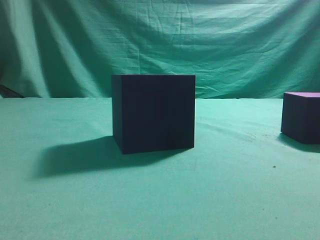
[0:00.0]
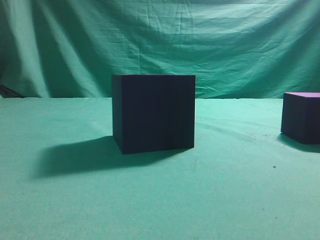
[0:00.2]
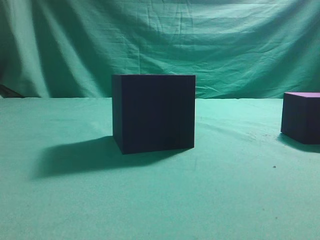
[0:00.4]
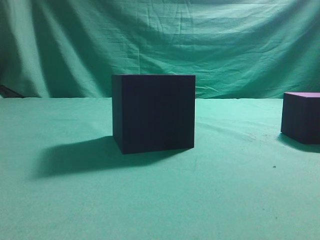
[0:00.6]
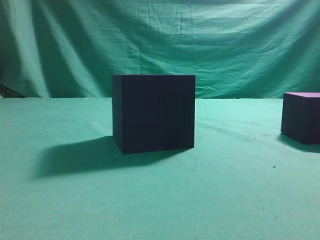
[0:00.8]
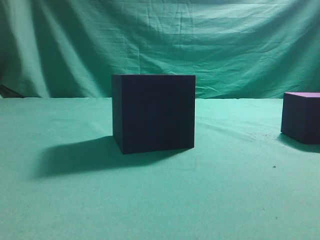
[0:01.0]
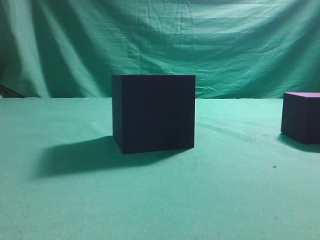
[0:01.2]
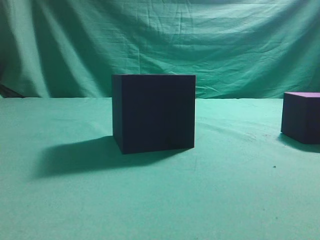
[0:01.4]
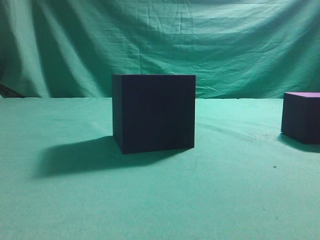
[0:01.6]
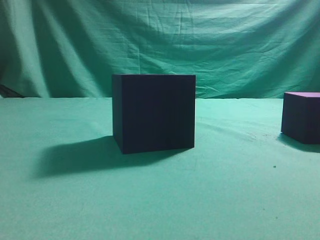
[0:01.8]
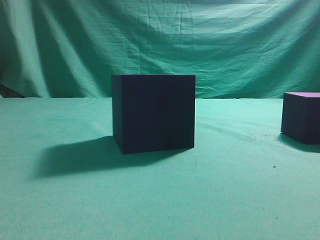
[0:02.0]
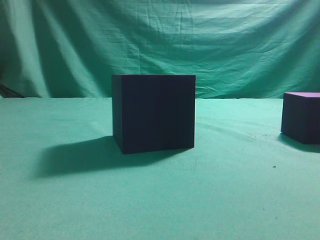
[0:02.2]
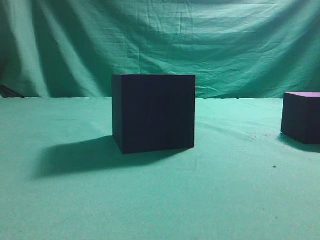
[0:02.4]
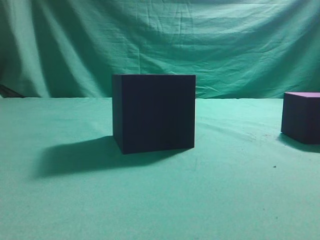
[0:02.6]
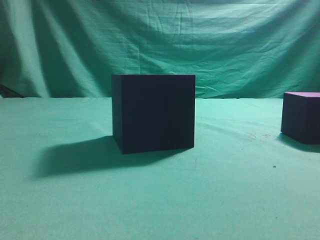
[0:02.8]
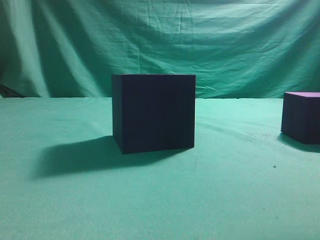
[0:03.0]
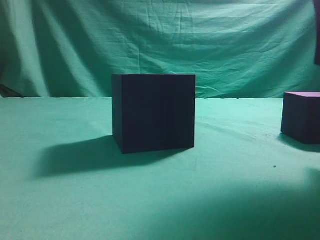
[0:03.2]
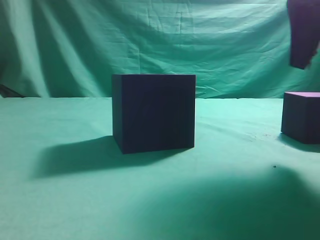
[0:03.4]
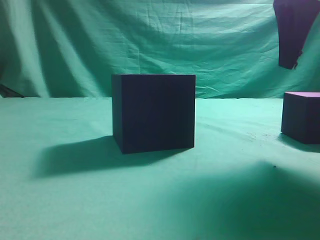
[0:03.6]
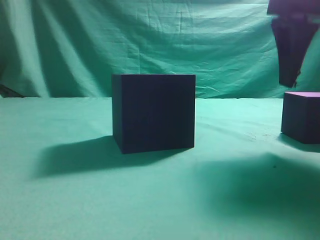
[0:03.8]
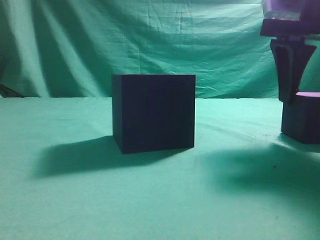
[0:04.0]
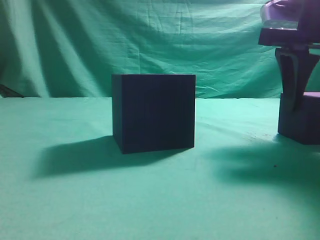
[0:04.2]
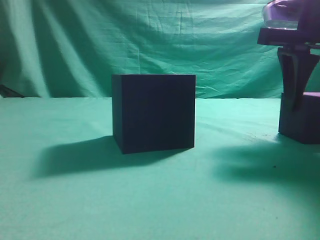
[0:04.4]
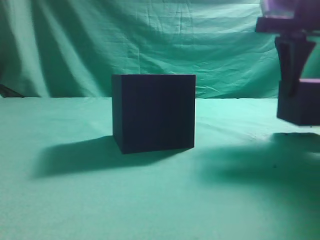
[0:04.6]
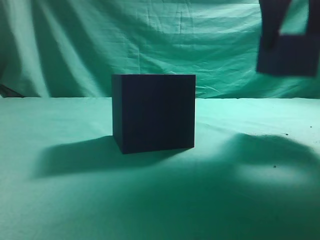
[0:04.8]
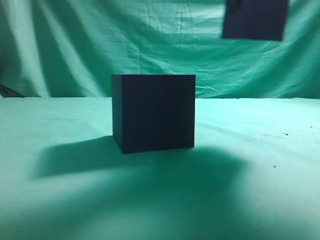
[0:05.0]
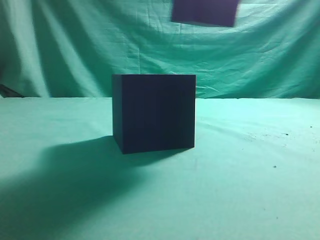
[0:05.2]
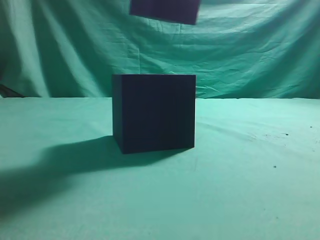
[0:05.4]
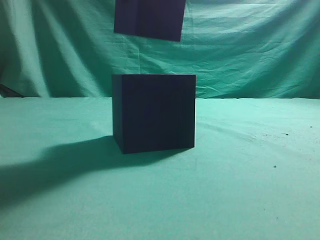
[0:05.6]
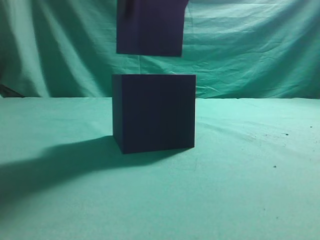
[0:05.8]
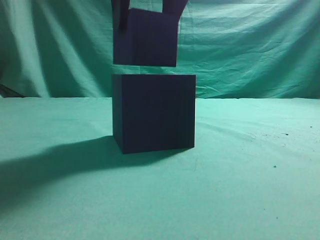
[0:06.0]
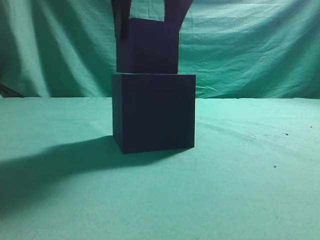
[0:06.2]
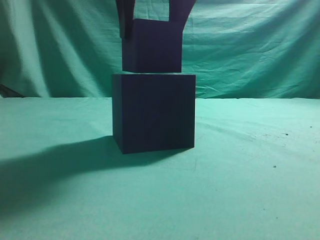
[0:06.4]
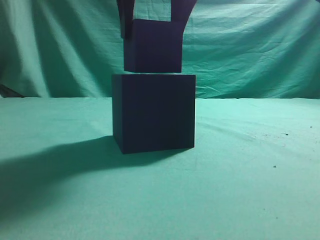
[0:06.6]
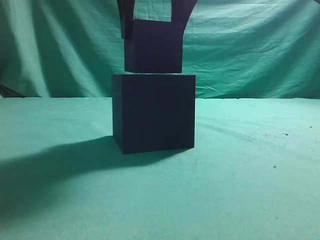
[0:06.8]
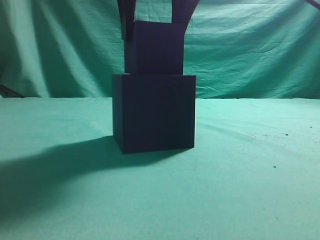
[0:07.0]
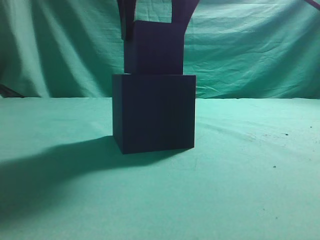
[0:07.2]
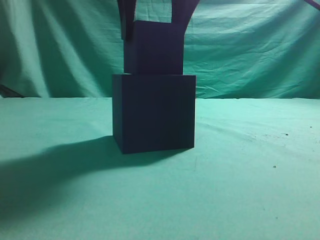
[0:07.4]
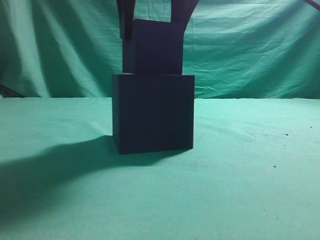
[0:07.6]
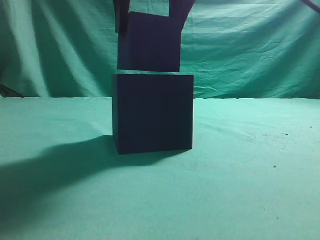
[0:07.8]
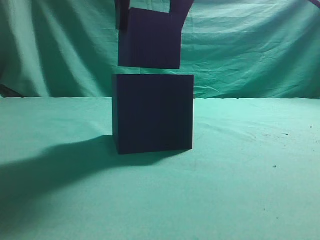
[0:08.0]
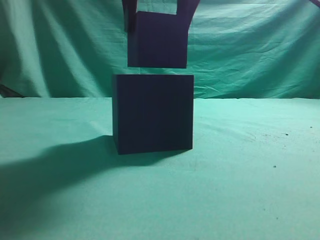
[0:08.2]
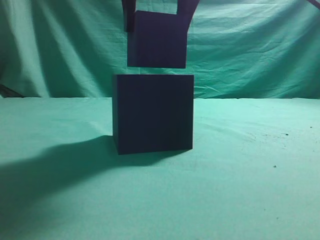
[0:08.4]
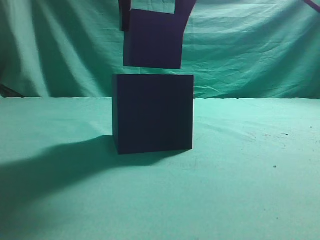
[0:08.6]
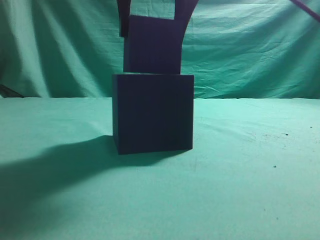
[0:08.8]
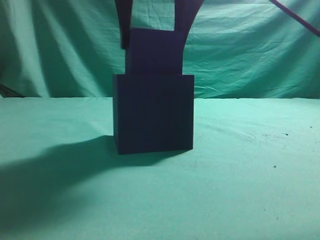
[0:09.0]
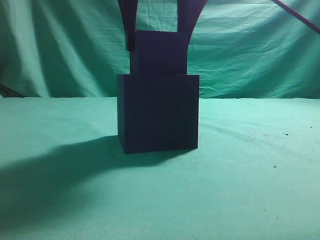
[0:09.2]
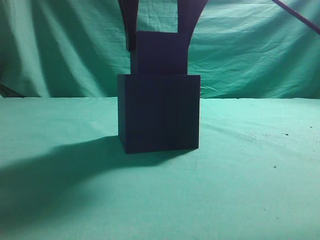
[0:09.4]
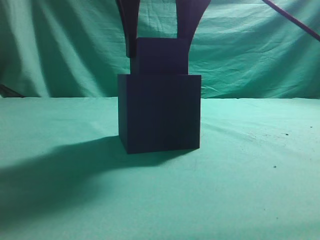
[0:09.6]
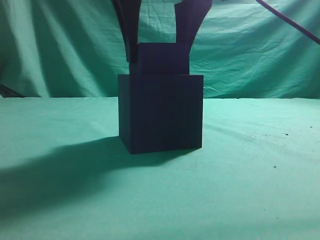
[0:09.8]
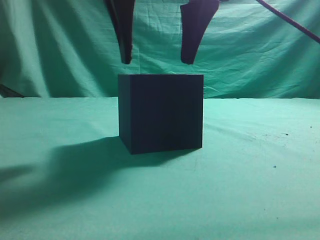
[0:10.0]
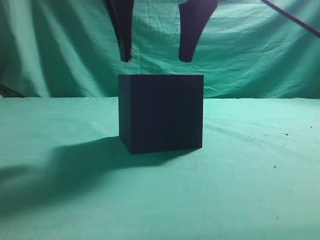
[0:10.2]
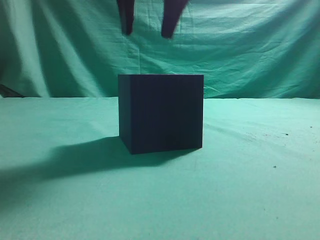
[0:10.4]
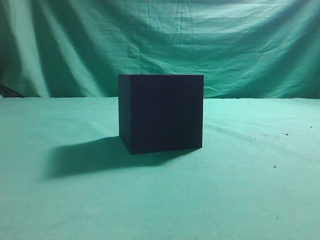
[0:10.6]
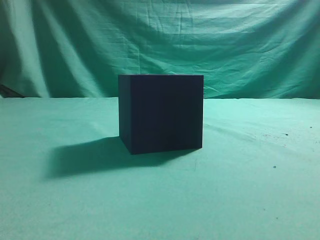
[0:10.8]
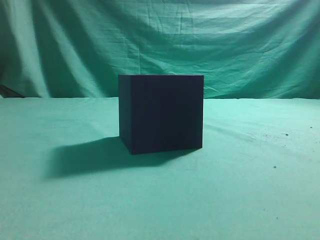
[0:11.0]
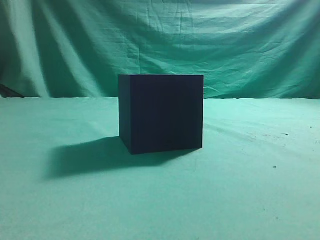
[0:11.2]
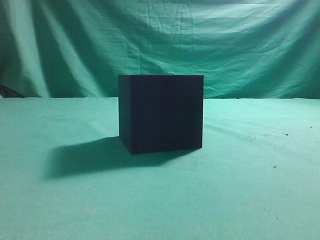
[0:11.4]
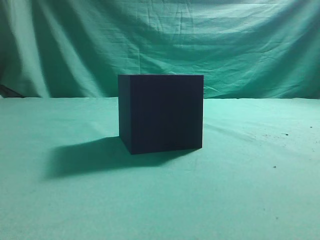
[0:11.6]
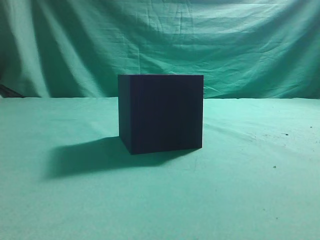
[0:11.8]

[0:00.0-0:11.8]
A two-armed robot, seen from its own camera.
Task of the whole recording: pick up the cube block and place it into the cube groove.
Step, 0:00.0 to 0:04.6: Grasp the cube.
Step, 0:04.8 to 0:10.2: Place cube into the cube-shaped recess.
0:03.0 to 0:04.4: The right gripper is displaced forward and downward by approximately 10 cm, and opens up.
0:04.4 to 0:06.0: The right gripper heads to the left and upward, covering some 20 cm.
0:06.0 to 0:10.4: The grippers move only a little.
0:10.4 to 0:11.8: The right gripper moves to the right, backward and upward, some 30 cm, and closes its fingers.
